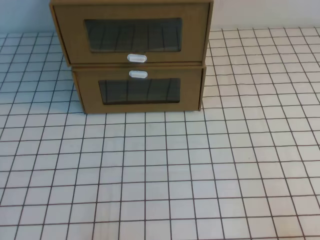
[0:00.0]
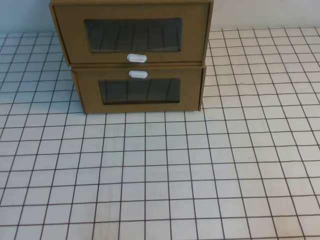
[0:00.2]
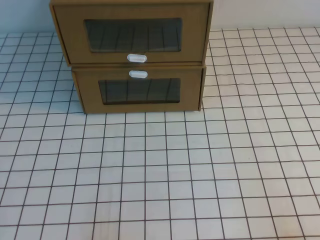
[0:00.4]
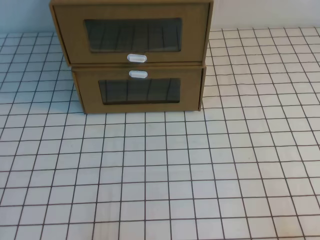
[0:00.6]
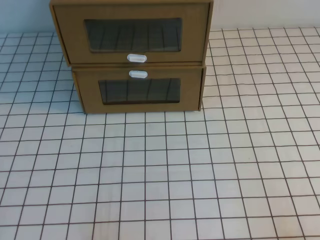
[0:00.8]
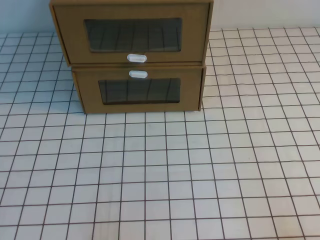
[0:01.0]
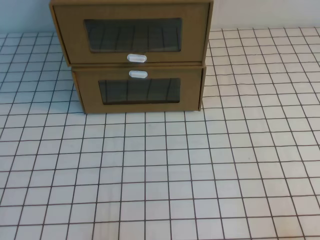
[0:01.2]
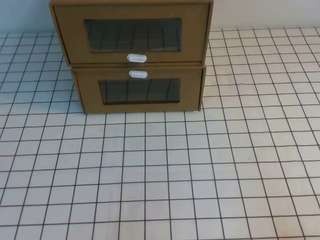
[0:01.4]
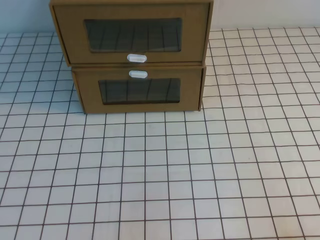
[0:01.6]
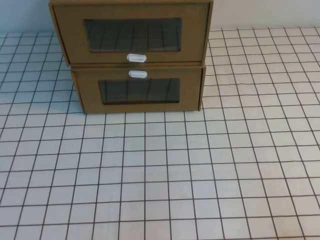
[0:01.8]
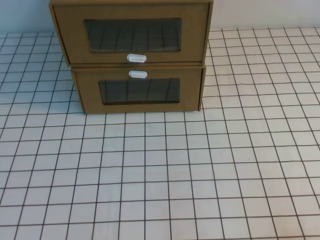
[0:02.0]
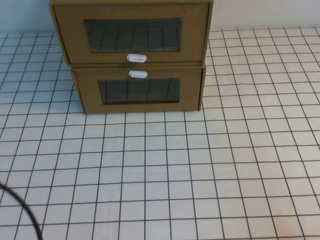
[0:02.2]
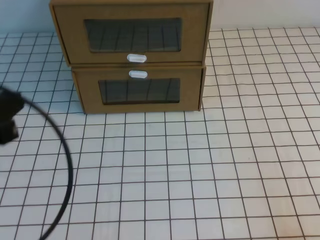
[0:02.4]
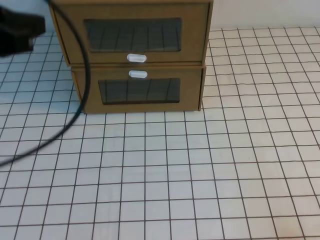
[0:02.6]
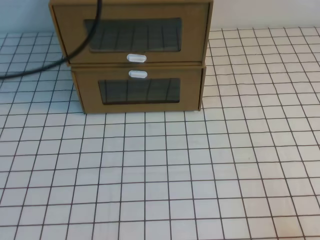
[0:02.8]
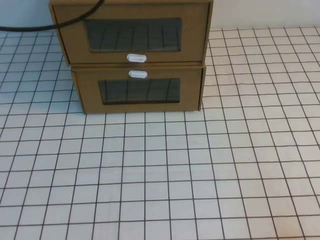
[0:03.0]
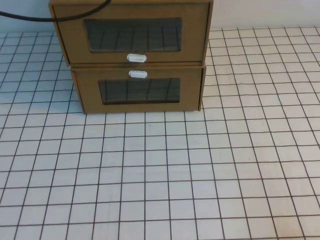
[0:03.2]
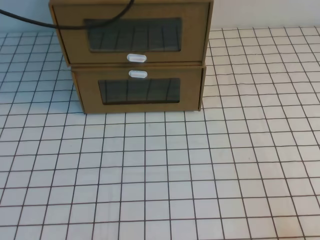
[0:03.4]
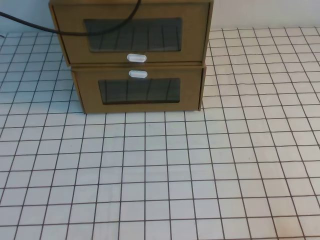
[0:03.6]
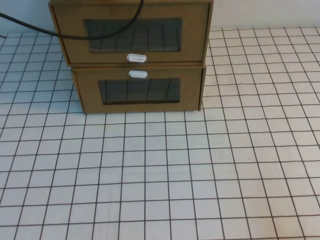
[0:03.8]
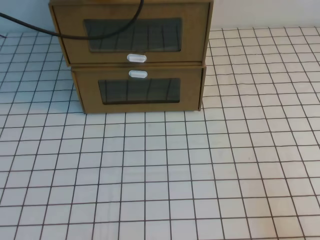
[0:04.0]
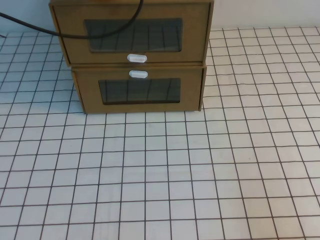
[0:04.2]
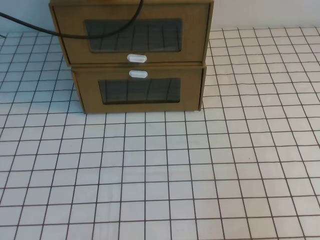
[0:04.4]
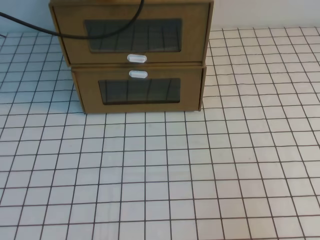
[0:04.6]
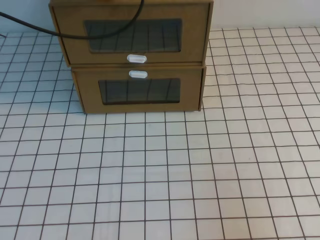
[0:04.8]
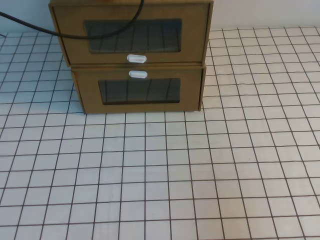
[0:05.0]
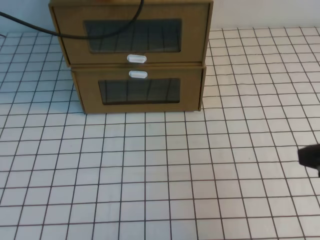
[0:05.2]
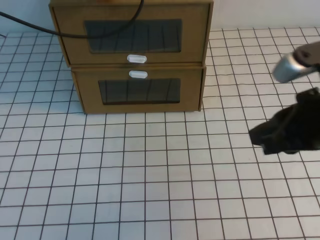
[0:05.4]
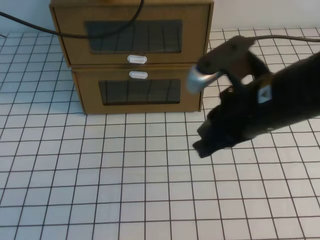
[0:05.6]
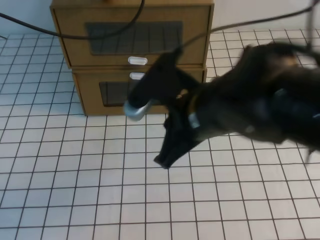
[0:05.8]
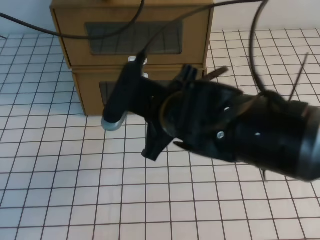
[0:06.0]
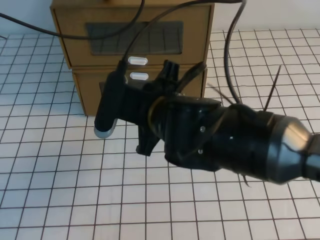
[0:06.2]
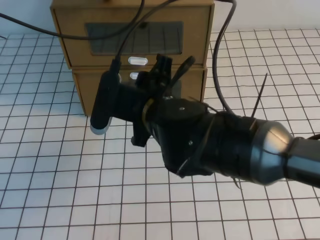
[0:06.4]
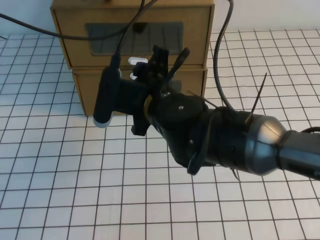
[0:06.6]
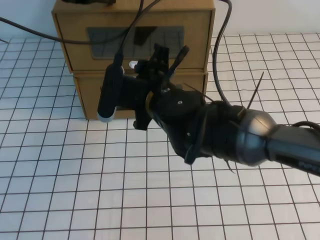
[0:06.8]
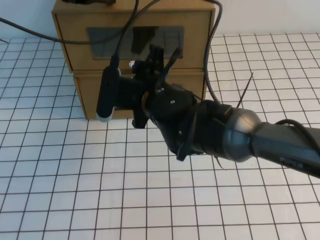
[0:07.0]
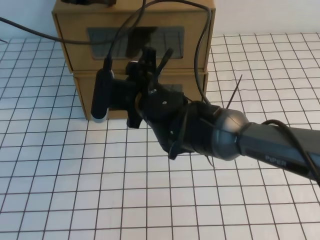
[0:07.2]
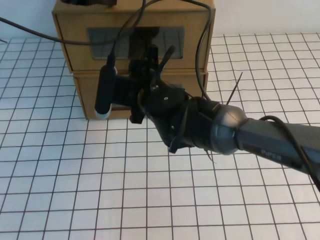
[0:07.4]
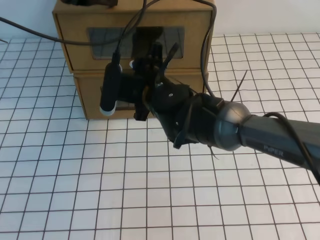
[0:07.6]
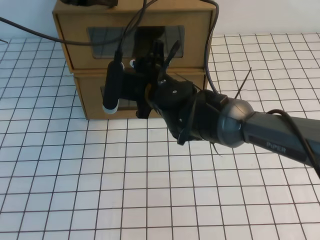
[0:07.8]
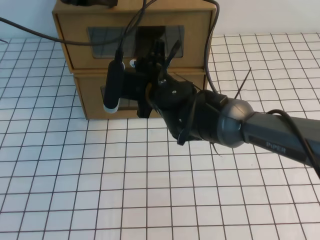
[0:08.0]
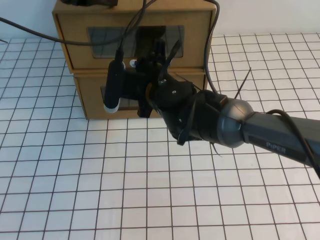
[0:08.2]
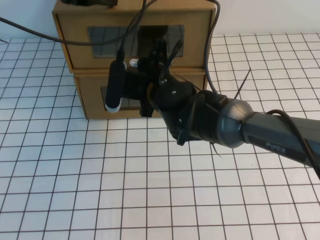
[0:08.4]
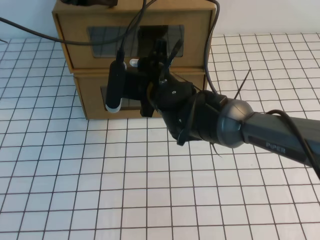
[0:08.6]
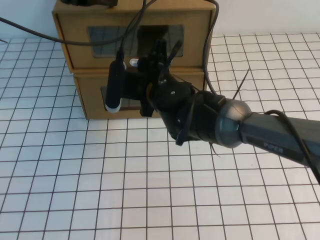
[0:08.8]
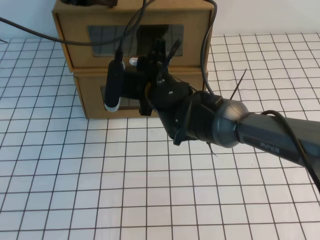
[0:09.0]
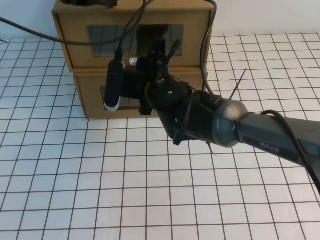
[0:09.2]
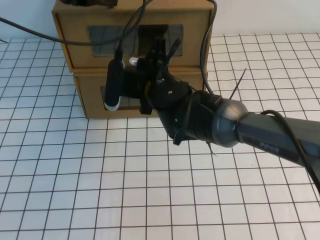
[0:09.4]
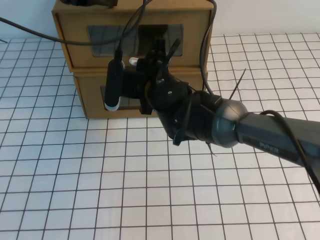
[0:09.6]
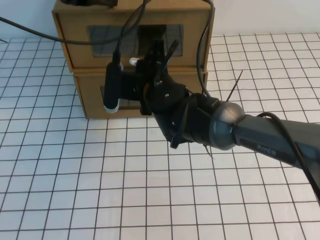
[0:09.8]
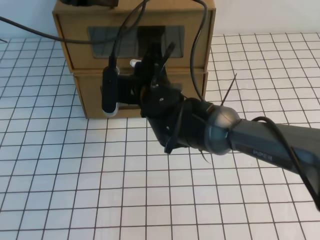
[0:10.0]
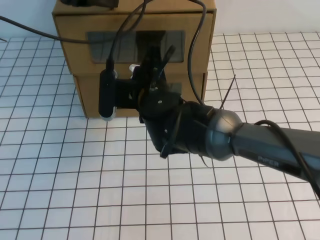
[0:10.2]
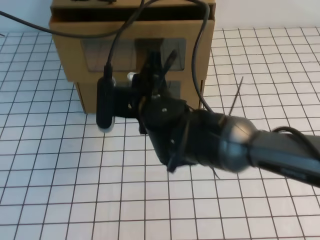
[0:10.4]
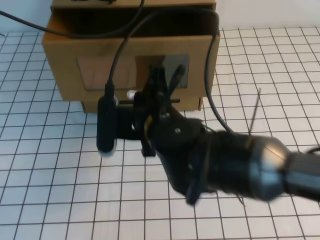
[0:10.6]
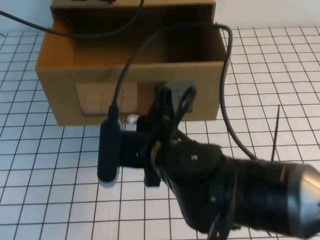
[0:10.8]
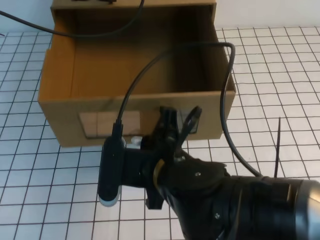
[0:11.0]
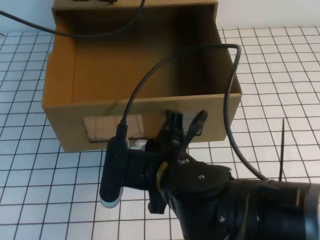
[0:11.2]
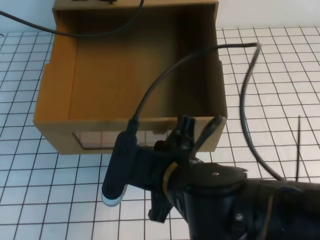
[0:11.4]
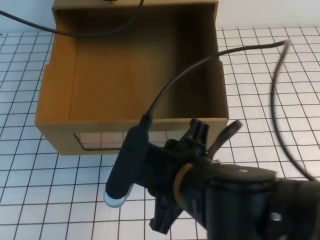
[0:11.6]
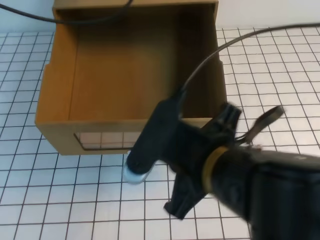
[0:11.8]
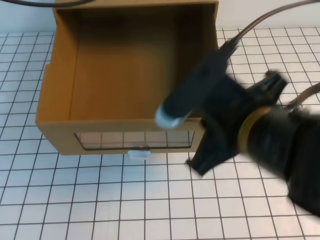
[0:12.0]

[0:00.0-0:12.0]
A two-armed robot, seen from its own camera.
Task of the whole recording: open the shoebox on the white tablecloth.
0:01.6 to 0:03.0: The left gripper goes roughly 40 cm forward and upward.
0:03.0 to 0:04.4: The left gripper moves forward and downward, about 10 cm.
0:04.4 to 0:06.0: The right gripper moves to the left and forward, approximately 35 cm.
0:06.0 to 0:07.6: The right gripper is displaced forward, downward and to the left by some 15 cm, and opens up.
0:07.6 to 0:09.0: The right gripper closes.
0:09.0 to 0:10.4: The right gripper goes approximately 5 cm backward, and closes up.
0:10.4 to 0:12.0: The right gripper goes roughly 20 cm backward, to the right and upward, and opens, then closes again. Meanwhile the left gripper moves upward and backward, about 10 cm.

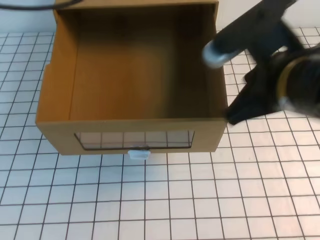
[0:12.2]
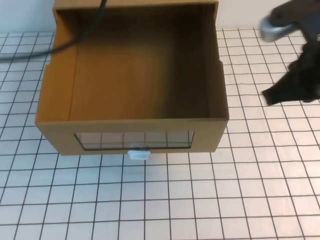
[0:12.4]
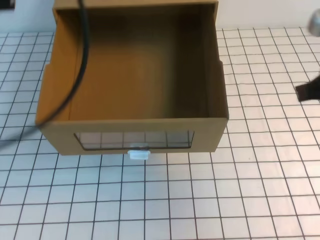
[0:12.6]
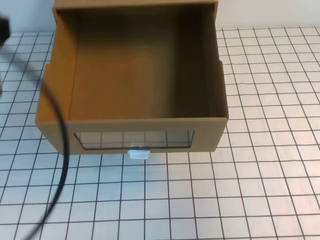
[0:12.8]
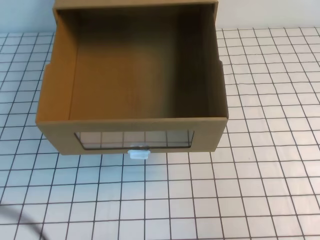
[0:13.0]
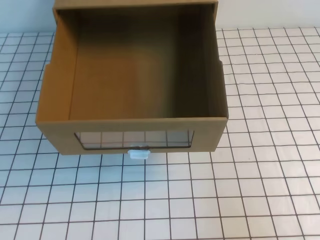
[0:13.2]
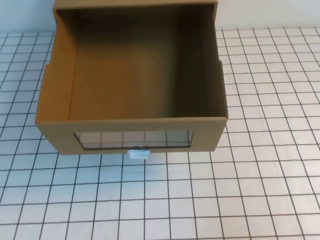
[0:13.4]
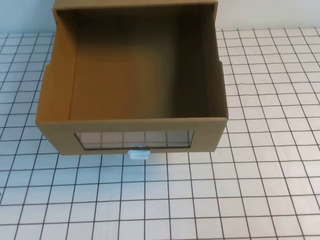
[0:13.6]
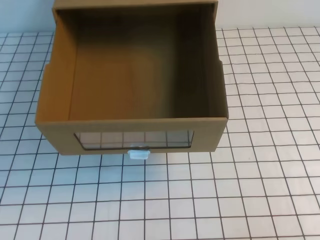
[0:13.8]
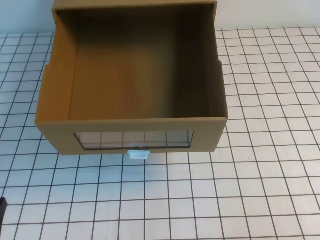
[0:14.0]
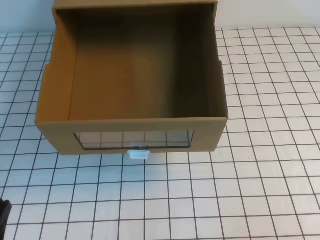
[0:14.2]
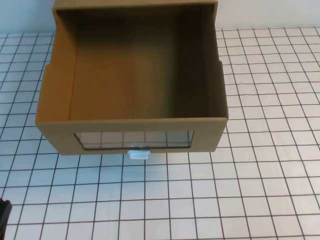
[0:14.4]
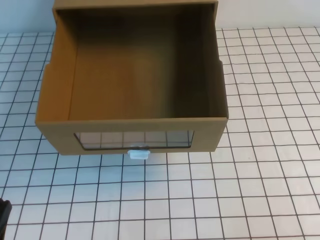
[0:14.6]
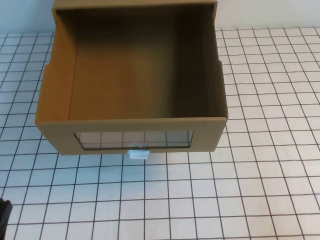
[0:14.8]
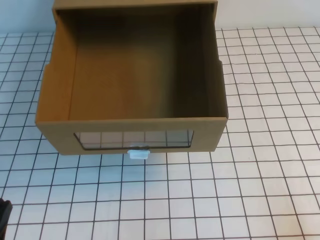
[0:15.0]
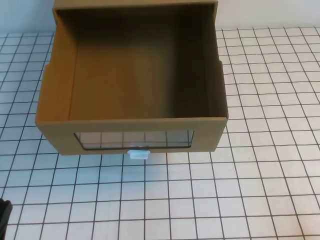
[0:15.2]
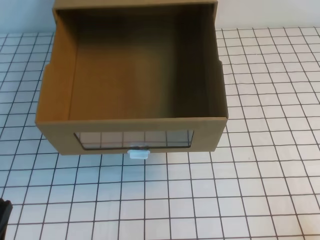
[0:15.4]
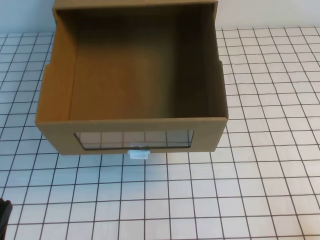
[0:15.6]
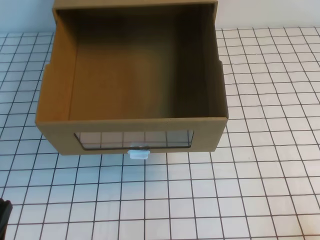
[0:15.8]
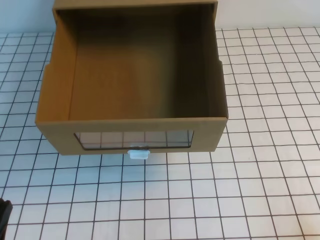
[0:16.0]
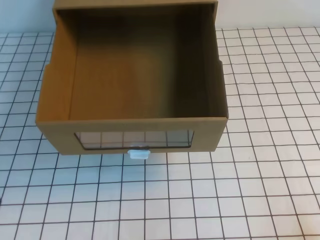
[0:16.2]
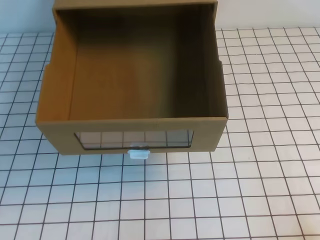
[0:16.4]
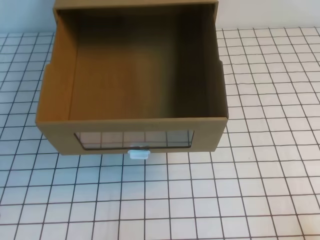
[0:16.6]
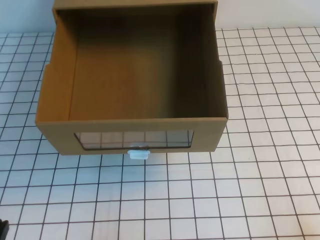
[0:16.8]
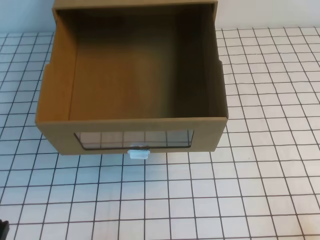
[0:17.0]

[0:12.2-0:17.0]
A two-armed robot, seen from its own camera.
Task of the whole recording: open the shoebox on the white tablecloth.
Step, 0:12.2 to 0:17.0: Open the shoe box.
0:12.2 to 0:13.8: The left gripper moves downward and backward, roughly 40 cm. The right gripper travels to the right, backward and downward by some 25 cm.

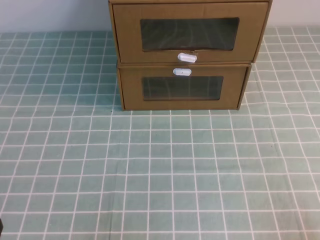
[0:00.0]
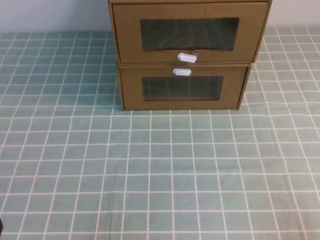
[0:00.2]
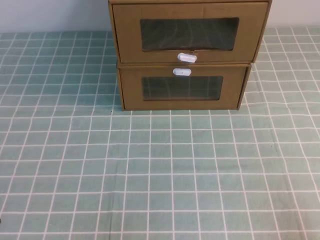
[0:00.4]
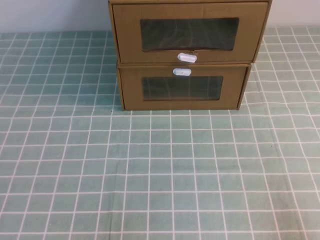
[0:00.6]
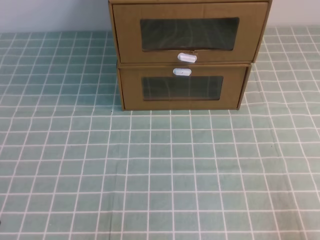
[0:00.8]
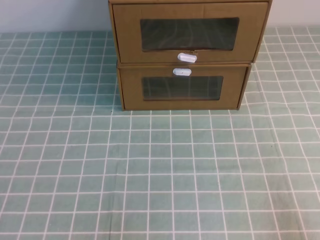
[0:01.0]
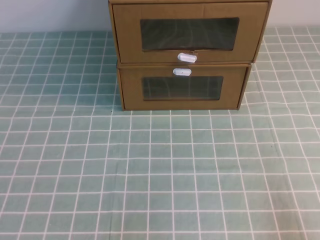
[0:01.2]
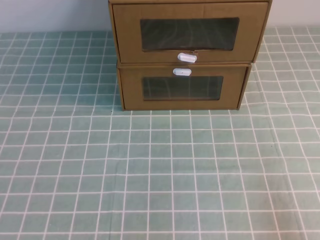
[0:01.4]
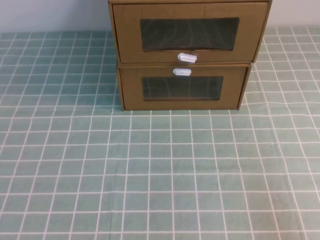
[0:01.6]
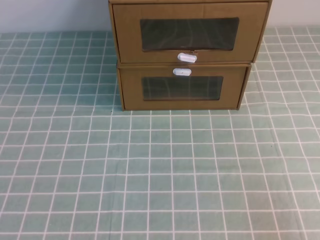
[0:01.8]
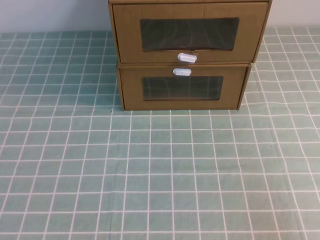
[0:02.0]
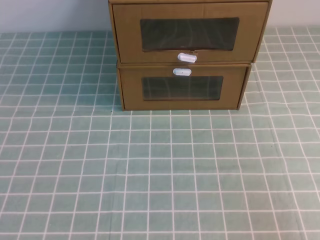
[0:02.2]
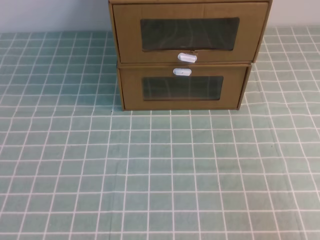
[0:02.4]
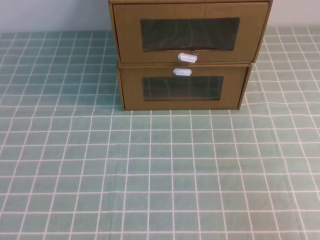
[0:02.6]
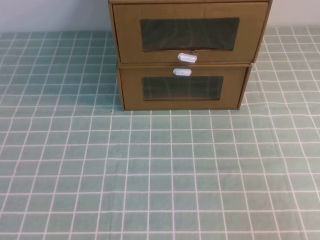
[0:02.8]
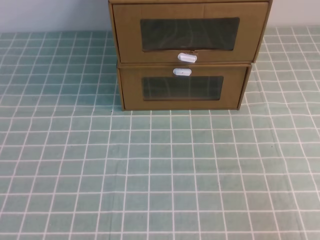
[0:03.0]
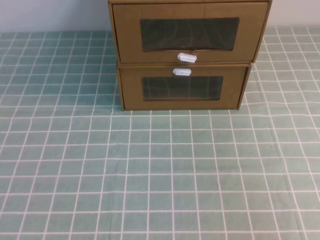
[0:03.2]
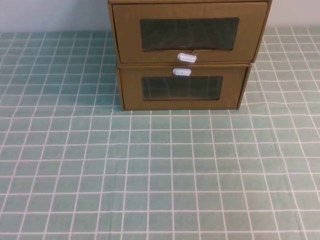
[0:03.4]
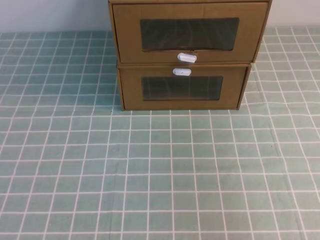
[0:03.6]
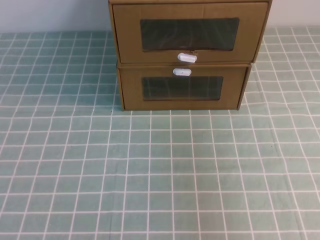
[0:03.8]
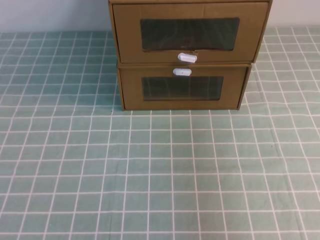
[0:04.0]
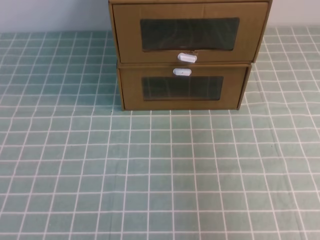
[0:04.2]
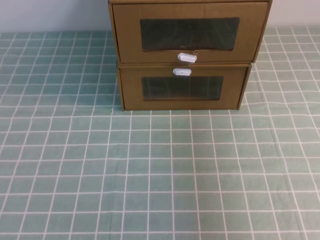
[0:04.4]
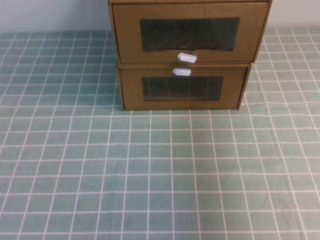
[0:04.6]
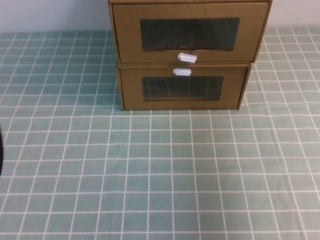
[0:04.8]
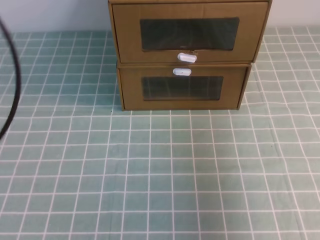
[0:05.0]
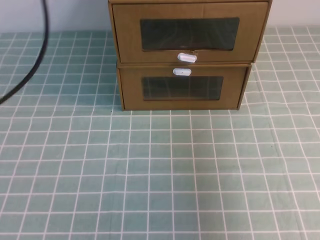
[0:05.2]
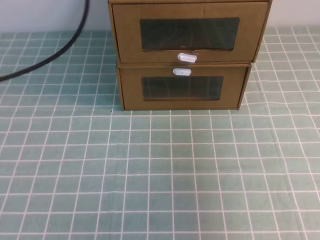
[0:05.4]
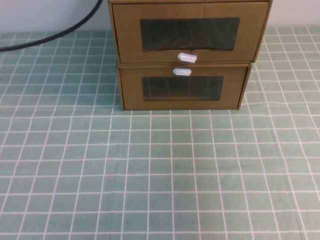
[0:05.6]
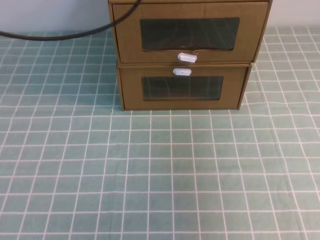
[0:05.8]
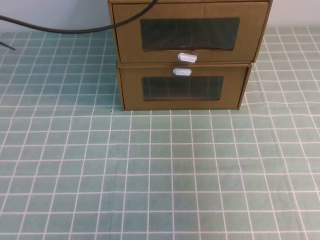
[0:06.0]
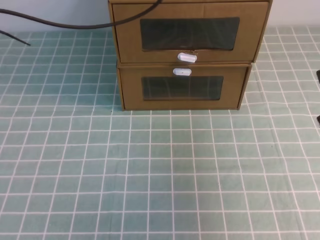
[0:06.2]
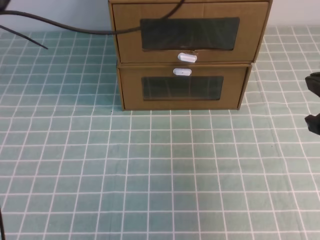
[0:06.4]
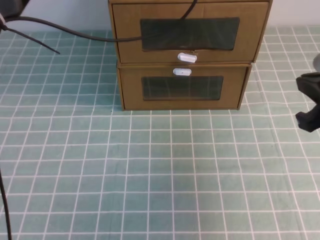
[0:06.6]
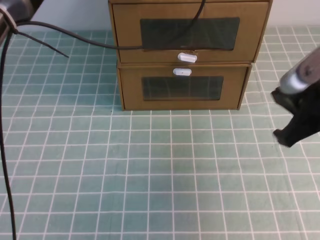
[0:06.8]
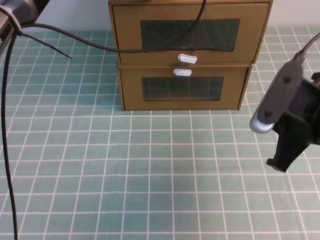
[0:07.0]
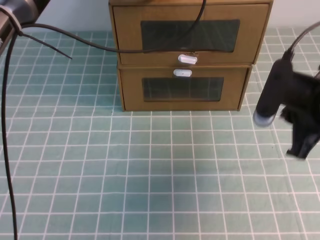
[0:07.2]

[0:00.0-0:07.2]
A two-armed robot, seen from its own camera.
Task of the whole recording: open the shoebox on the cyan tablecloth.
0:02.8 to 0:04.4: The left gripper shifts approximately 15 cm upward and forward; the right gripper shifts some 20 cm forward and upward.
0:04.4 to 0:05.8: The left gripper goes about 30 cm forward and to the right.
0:05.8 to 0:07.2: The right gripper moves forward and downward, roughly 10 cm, while the left gripper is displaced to the right, downward and forward by some 15 cm.
